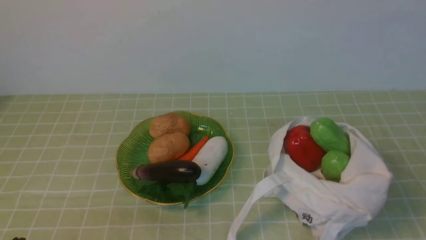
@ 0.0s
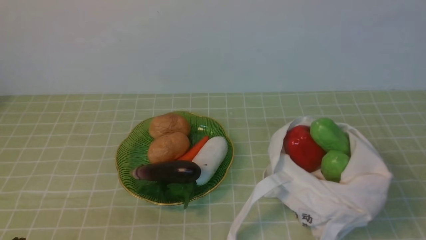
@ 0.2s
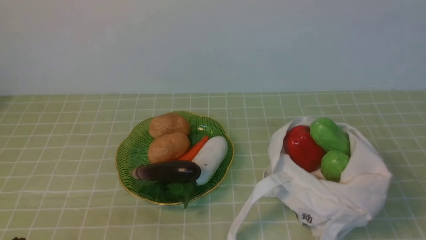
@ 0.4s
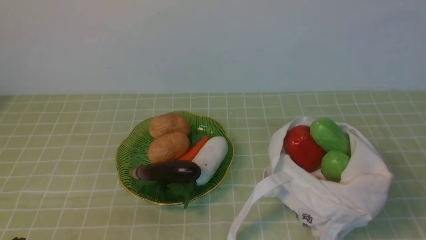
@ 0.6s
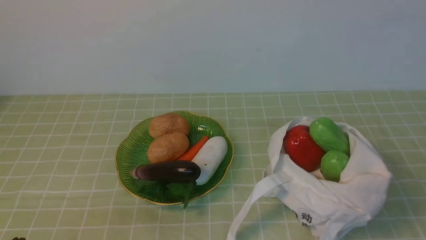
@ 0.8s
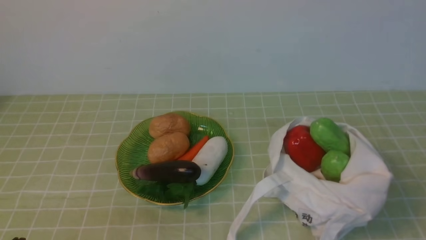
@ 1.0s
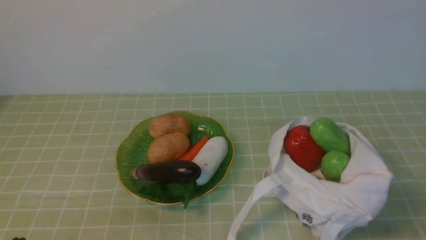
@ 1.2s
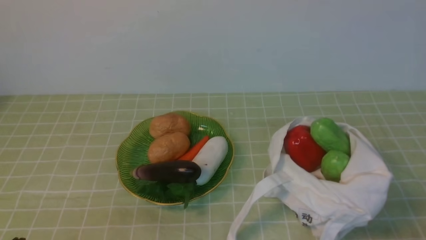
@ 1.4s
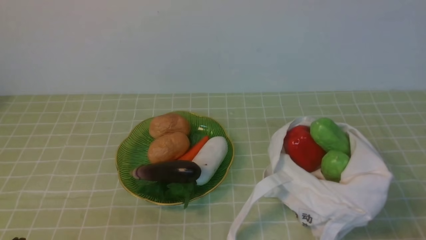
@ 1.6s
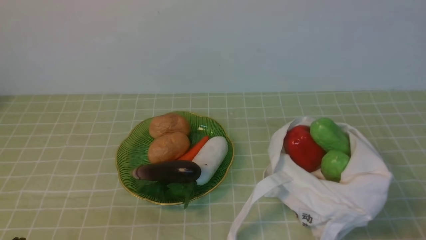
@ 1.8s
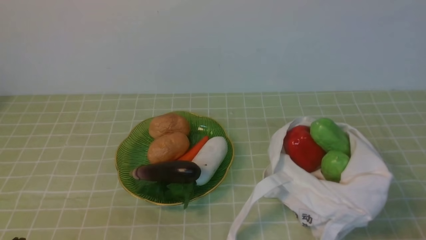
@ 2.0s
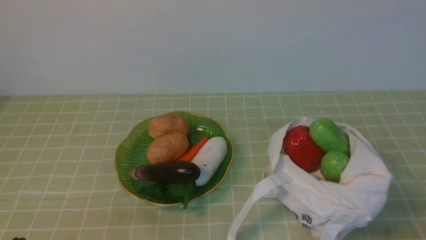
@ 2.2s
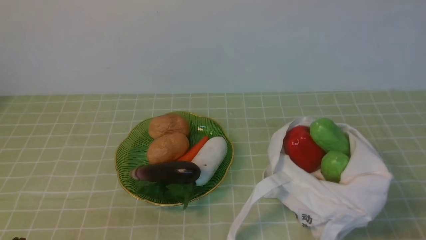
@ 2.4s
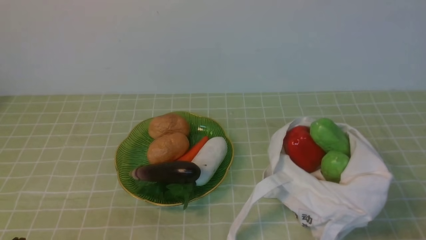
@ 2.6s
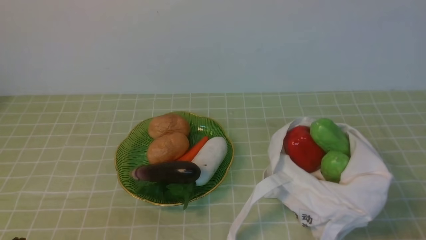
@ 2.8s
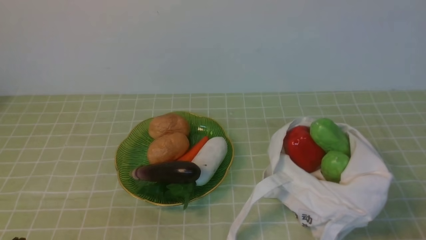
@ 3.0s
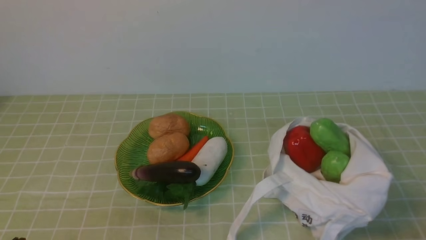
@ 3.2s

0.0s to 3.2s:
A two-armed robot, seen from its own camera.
Task of the whole recording: take vegetables from bag on green coffee tablecloth place on plate.
1.6s to 3.2s: The two grippers keep their place.
